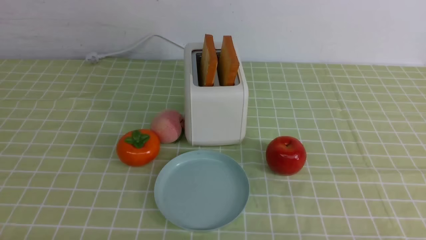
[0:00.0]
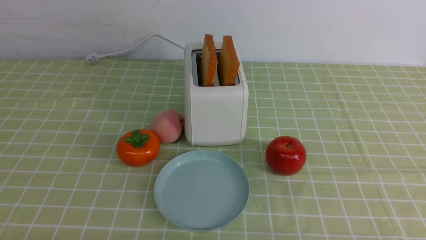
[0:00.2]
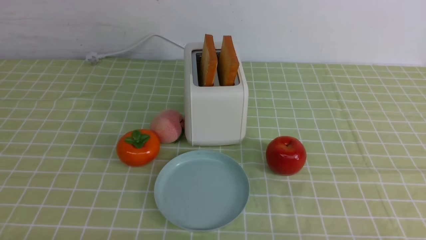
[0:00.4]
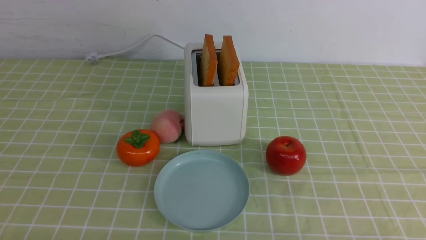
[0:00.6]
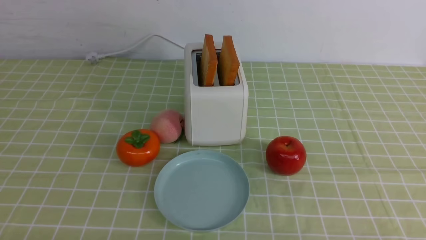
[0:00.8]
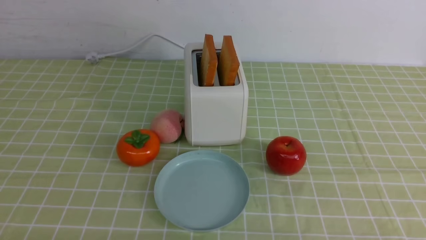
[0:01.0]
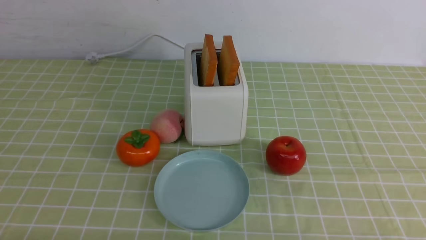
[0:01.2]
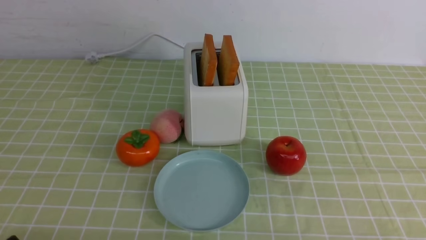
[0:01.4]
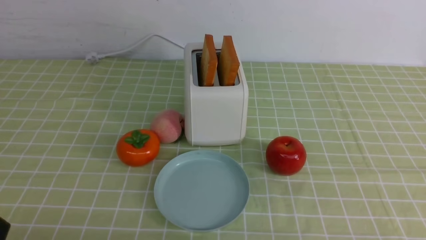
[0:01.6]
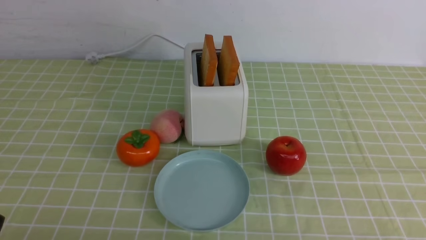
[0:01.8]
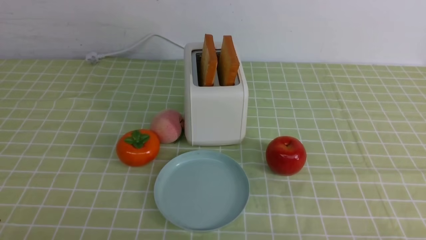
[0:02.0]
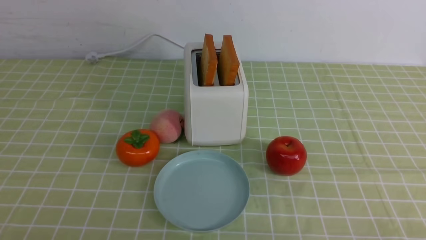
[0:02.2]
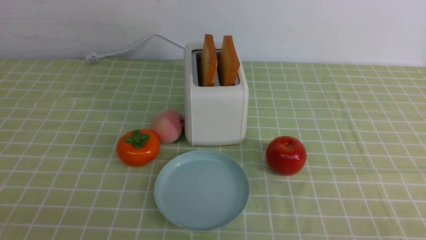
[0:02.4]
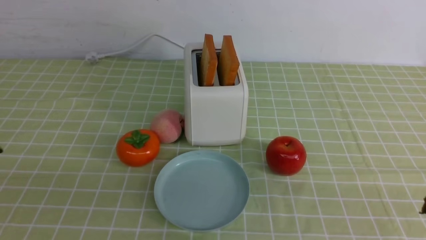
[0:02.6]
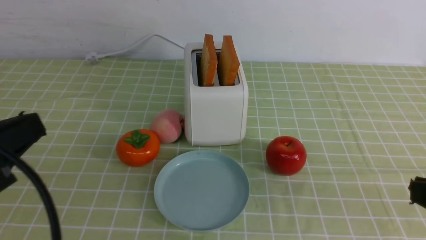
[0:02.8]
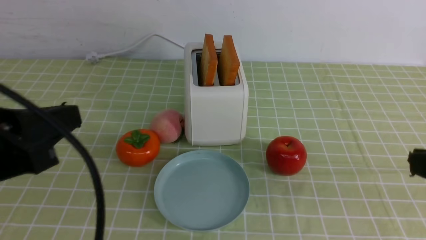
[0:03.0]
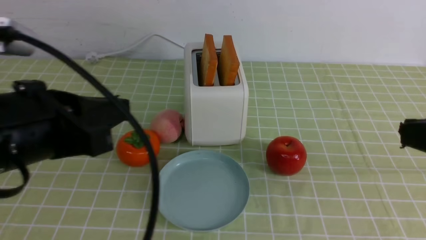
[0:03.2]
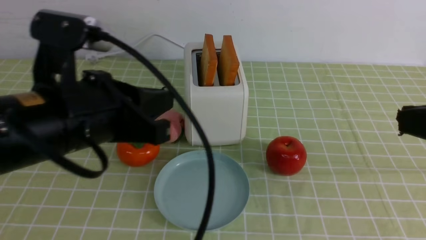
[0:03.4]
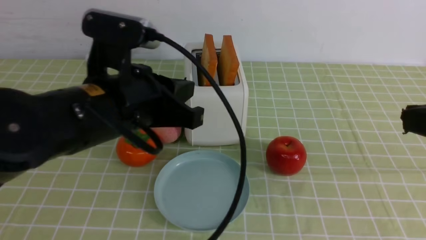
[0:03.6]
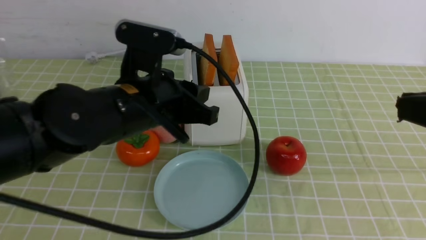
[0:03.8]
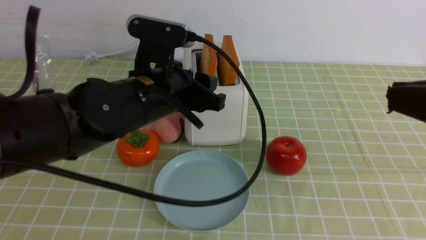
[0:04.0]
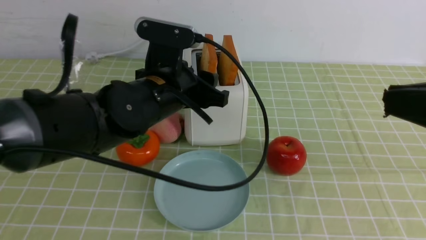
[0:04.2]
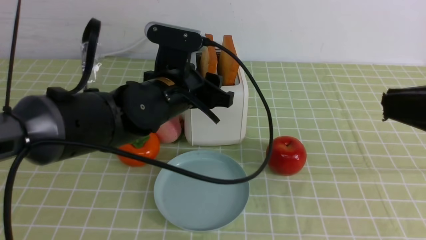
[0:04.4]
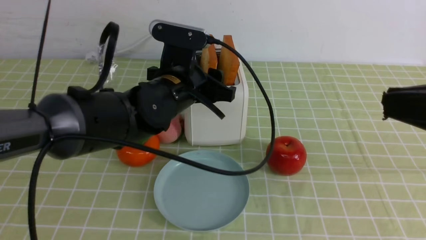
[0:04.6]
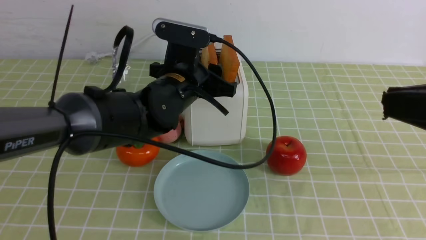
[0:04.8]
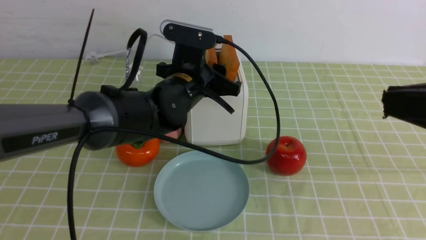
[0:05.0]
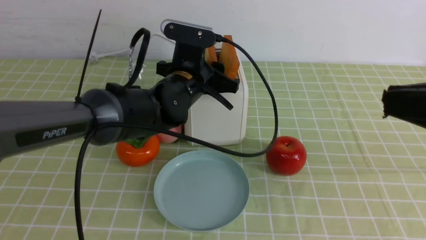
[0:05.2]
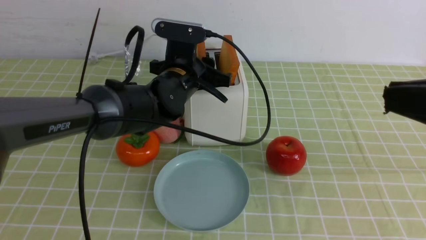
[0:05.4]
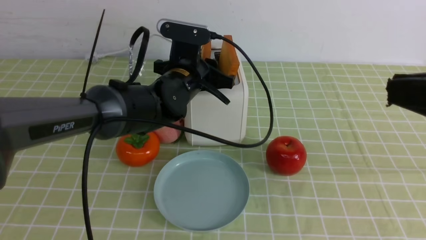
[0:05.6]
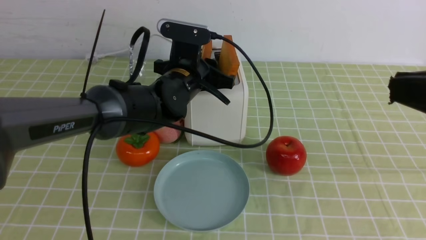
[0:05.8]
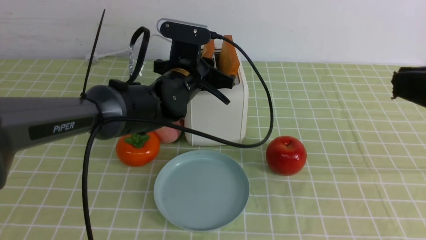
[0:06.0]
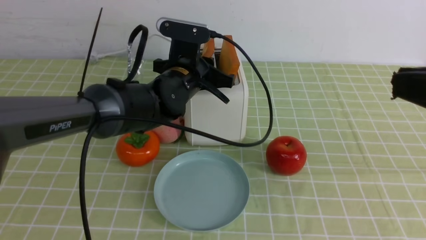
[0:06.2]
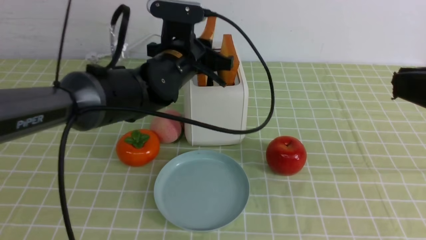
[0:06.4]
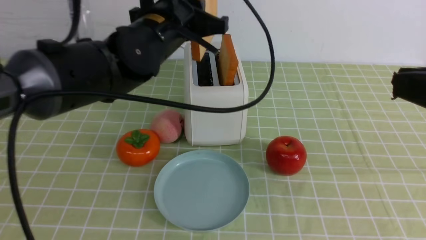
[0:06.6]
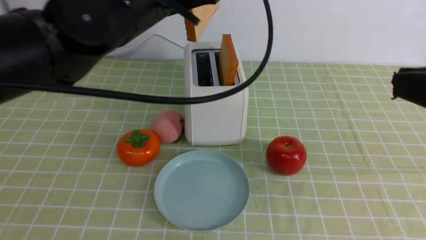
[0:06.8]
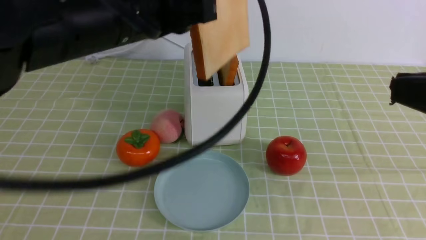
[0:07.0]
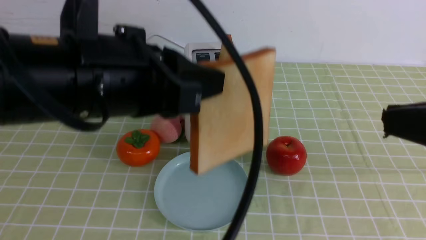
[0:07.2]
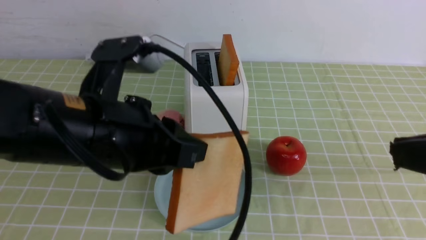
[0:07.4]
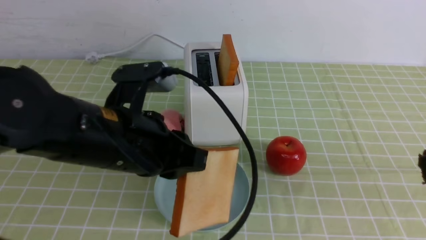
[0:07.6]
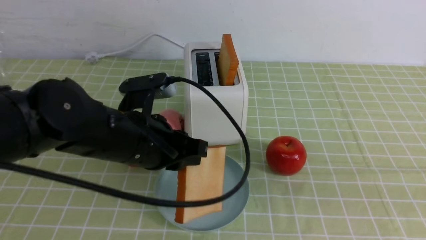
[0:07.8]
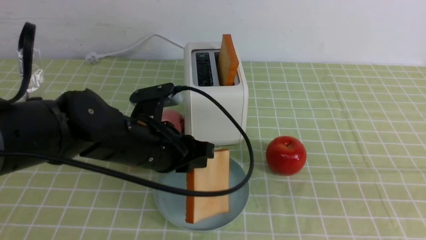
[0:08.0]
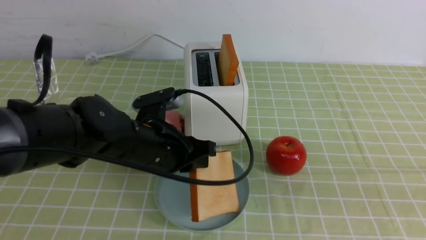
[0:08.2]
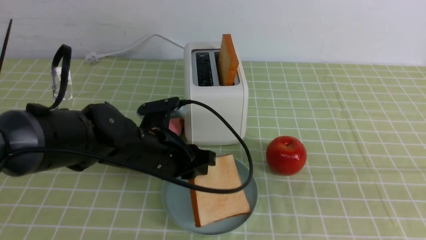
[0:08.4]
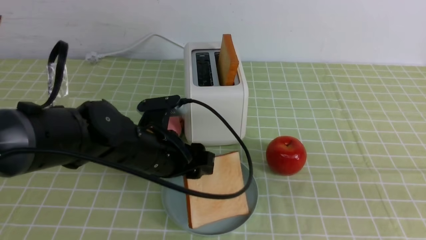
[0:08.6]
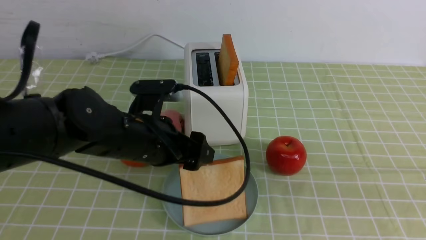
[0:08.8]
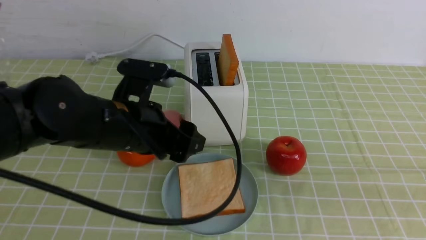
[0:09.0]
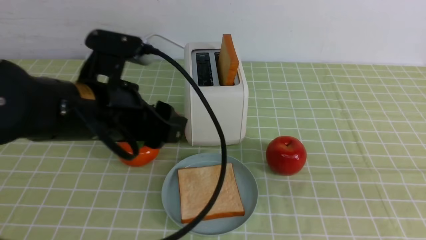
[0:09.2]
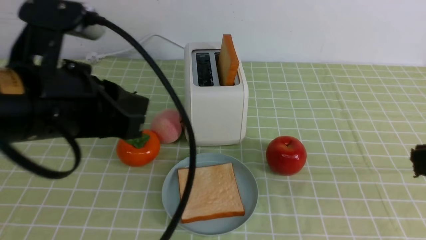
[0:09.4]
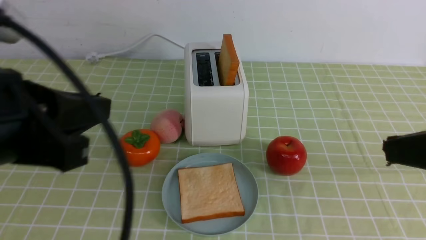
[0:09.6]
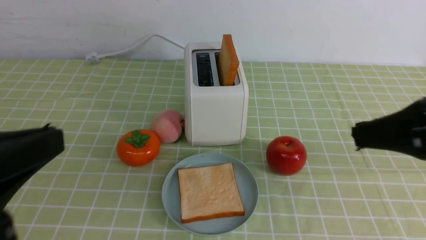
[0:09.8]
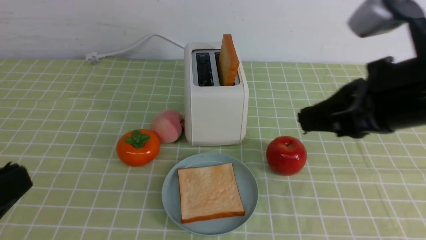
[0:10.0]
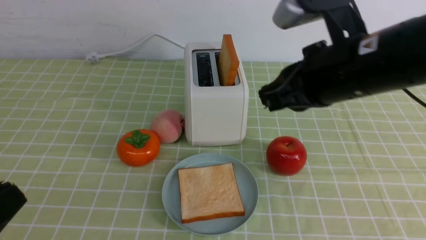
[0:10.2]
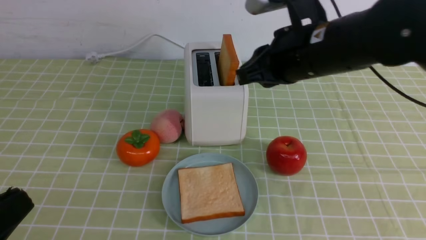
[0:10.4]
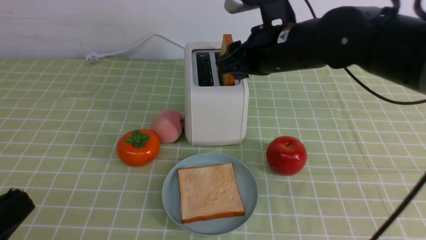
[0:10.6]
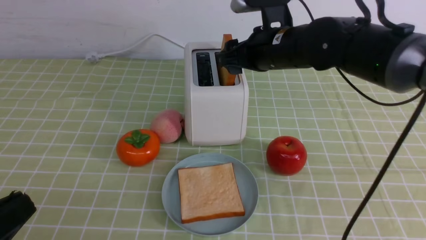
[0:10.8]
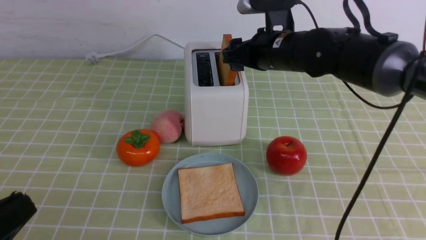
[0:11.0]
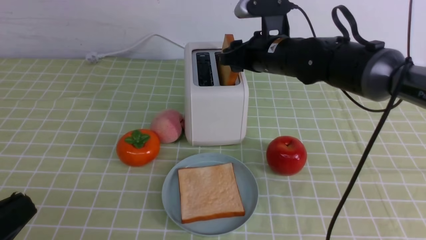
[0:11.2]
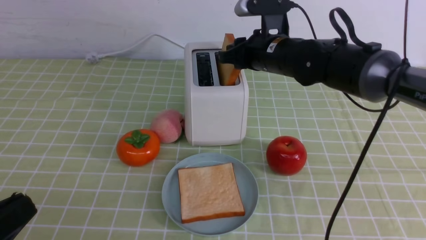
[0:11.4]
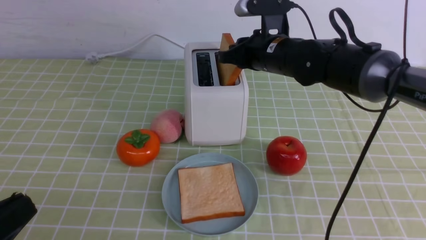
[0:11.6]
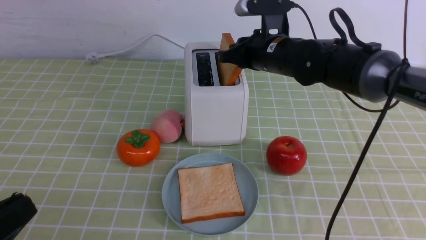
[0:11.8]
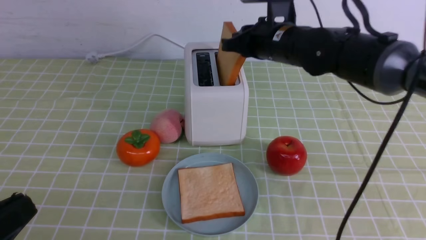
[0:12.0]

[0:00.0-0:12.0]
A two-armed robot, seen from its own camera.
Task of the whole recording: take toasted bread from bread machine on green coffee tablecloth place on plate.
Step, 0:00.0 to 0:06.6: use the left arm to take out a slice of bread.
Step, 0:06.8 to 0:08.8: use the left arm to put a slice of bread into the empty plate.
0:01.6 to 0:03.0: The left gripper moves upward and forward, about 20 cm, and closes its fingers.
0:03.0 to 0:04.4: The left gripper travels forward and to the right by approximately 25 cm, and opens.
0:04.4 to 0:06.0: The left gripper heads forward, covering approximately 5 cm, and closes.
0:06.0 to 0:07.6: The left gripper shifts about 15 cm backward.
0:07.6 to 0:09.0: The left gripper goes downward and returns, approximately 10 cm each way, and opens.
0:09.0 to 0:10.4: The left gripper goes approximately 25 cm backward and to the left, and closes, while the right gripper travels forward and to the left by approximately 30 cm, and opens its fingers.
0:10.4 to 0:12.0: The right gripper travels forward by some 10 cm, and opens, then closes once more.

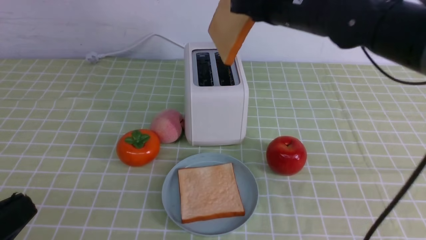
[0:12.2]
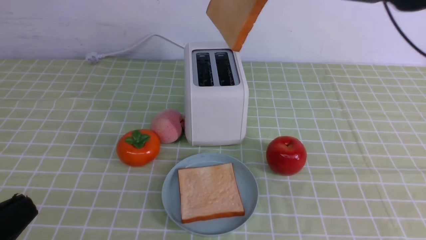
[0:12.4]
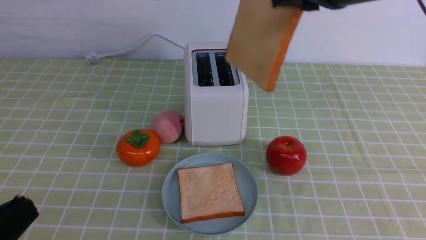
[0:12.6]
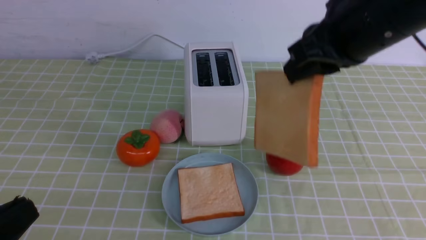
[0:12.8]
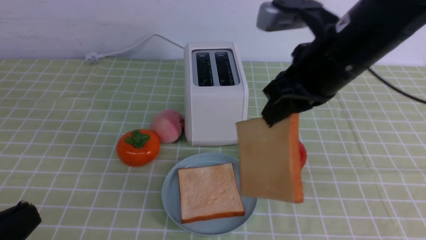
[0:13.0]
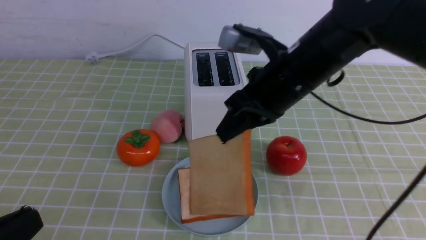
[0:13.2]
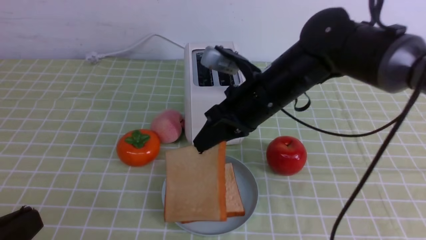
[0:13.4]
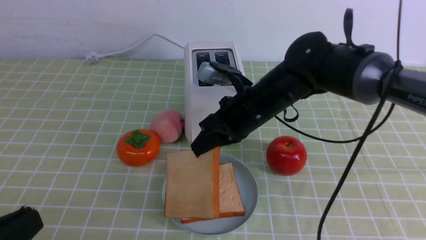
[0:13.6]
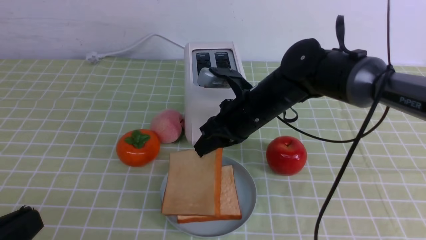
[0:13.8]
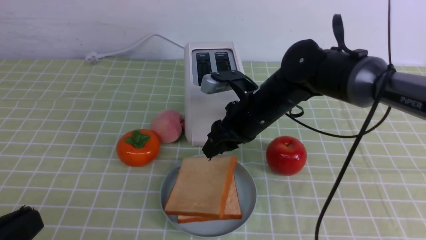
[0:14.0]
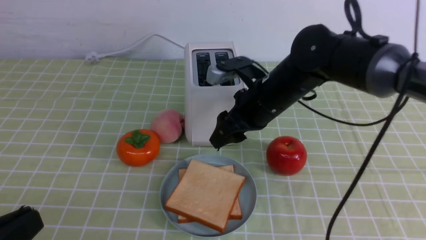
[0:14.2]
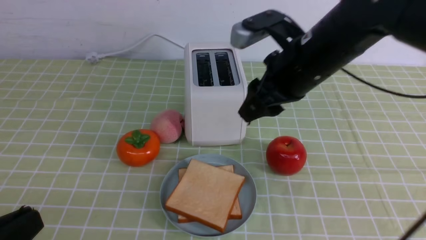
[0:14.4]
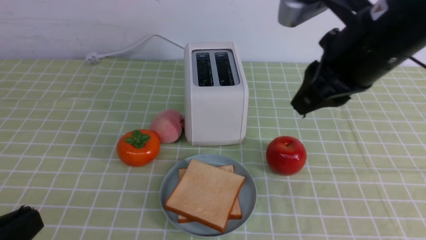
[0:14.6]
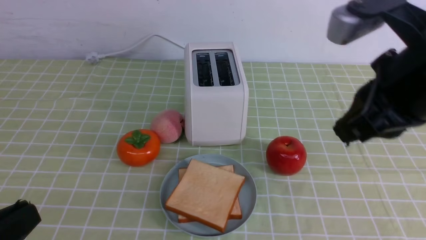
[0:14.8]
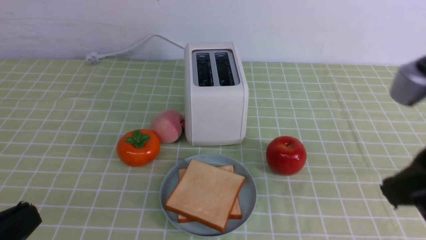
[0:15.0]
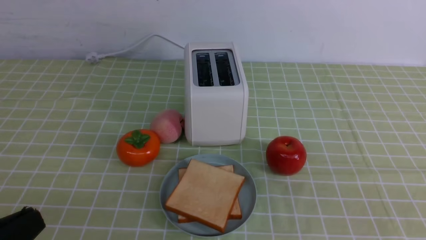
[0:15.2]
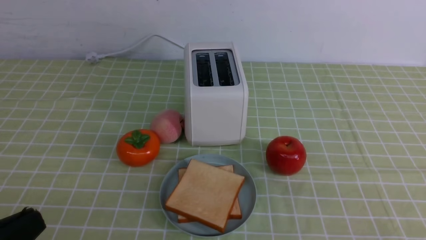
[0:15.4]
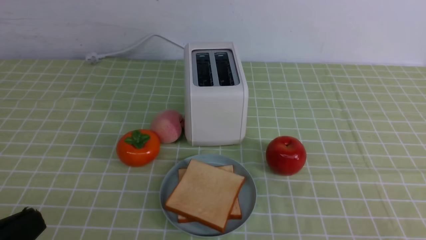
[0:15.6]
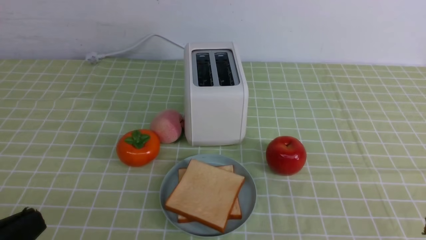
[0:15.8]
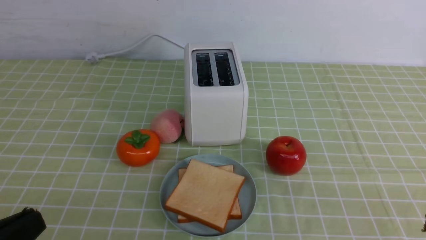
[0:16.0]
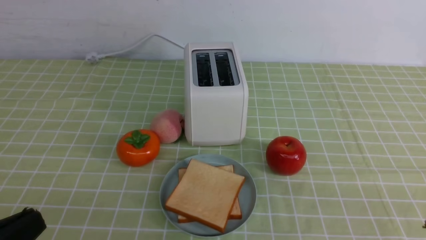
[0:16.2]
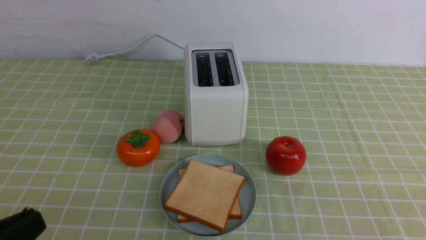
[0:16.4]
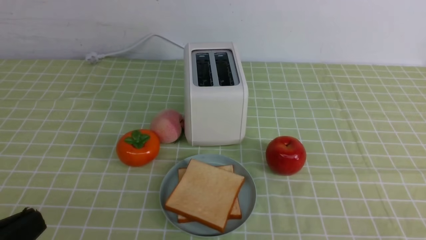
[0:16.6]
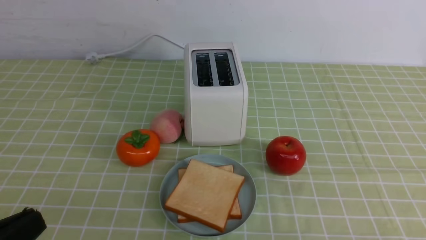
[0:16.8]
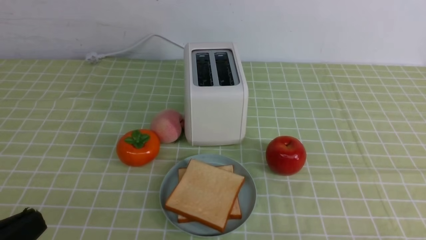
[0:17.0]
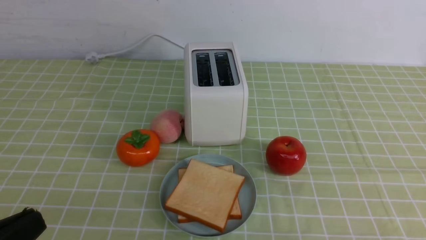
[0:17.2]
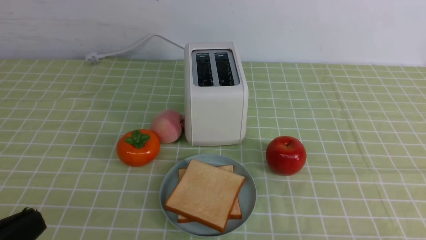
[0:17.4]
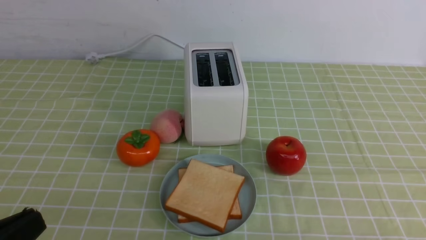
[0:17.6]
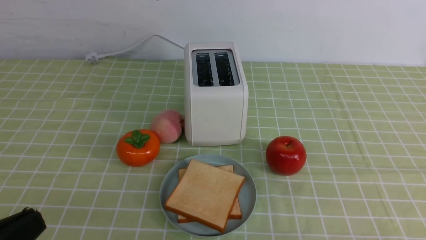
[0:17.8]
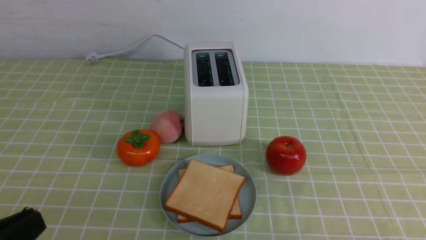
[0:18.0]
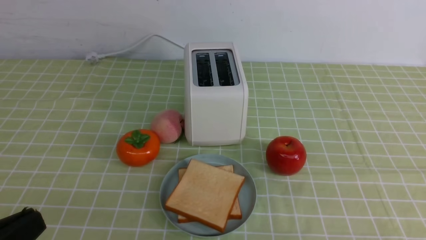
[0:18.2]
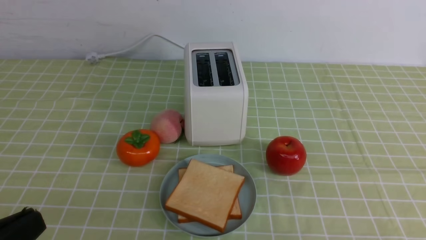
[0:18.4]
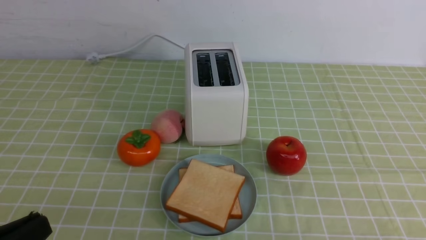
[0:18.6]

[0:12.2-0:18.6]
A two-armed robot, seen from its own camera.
Task of the whole recording: take toasted bread from bread machine on green coffee tablecloth place on plate.
Step, 0:12.4 to 0:14.2: use the right arm to put a slice of bread into the plate.
0:12.2 to 0:13.8: The right gripper is displaced downward by approximately 15 cm.
0:13.8 to 0:15.4: The right gripper heads backward and to the right, covering about 40 cm, and closes up.
